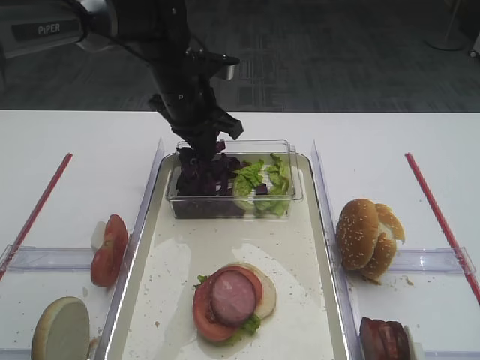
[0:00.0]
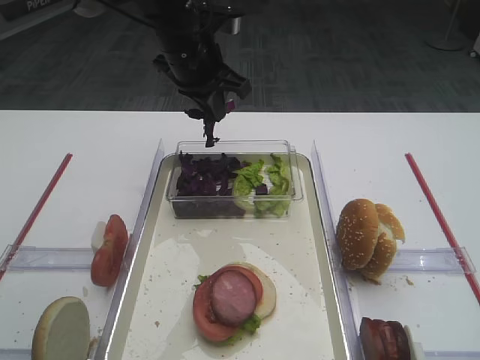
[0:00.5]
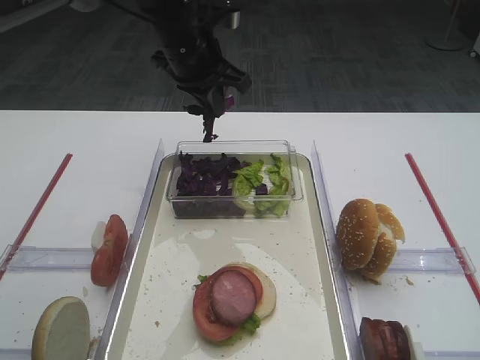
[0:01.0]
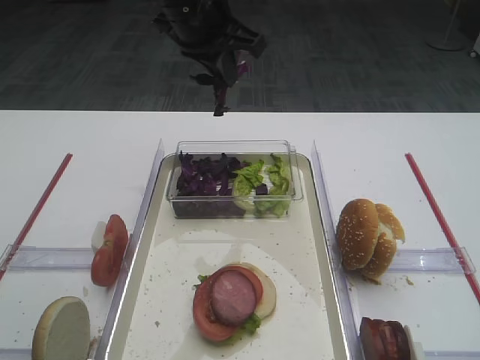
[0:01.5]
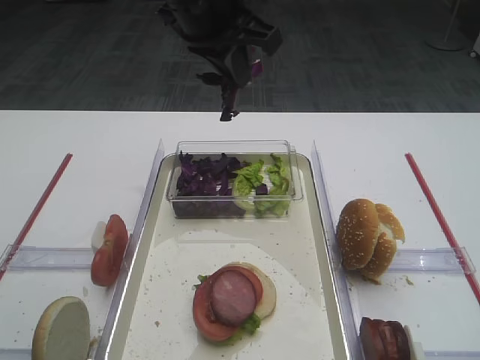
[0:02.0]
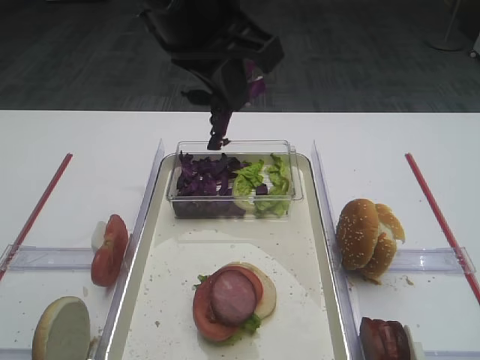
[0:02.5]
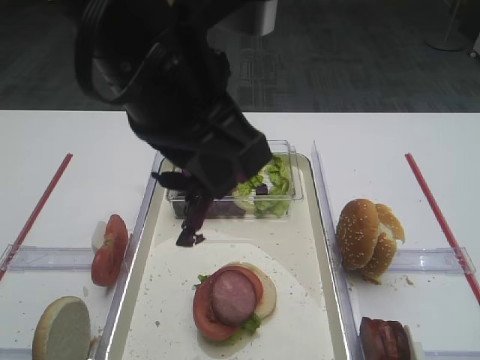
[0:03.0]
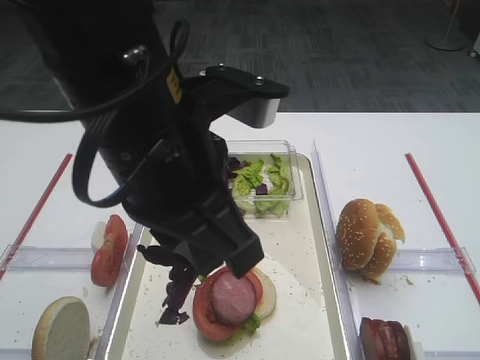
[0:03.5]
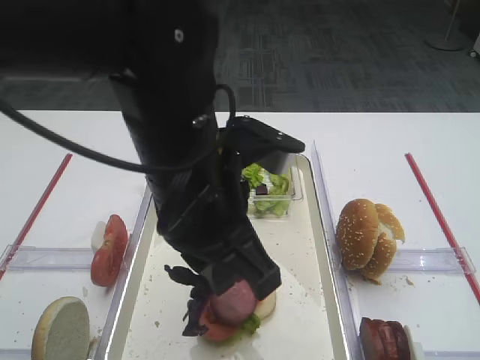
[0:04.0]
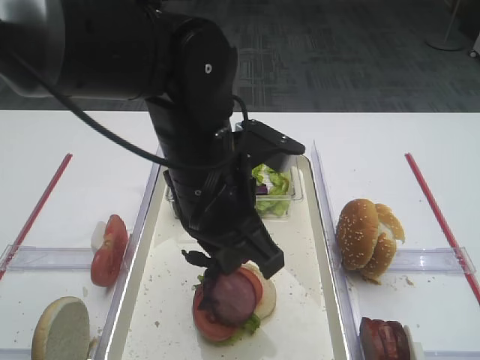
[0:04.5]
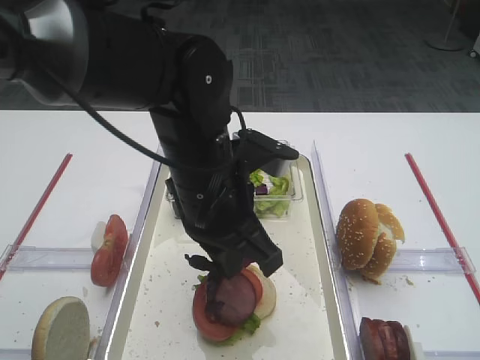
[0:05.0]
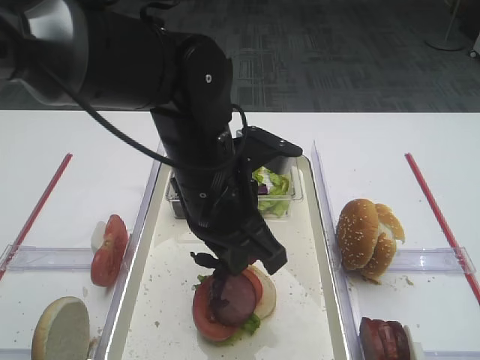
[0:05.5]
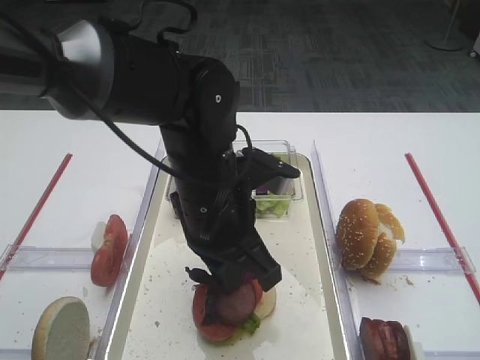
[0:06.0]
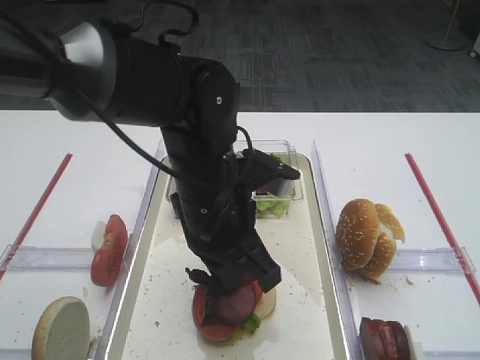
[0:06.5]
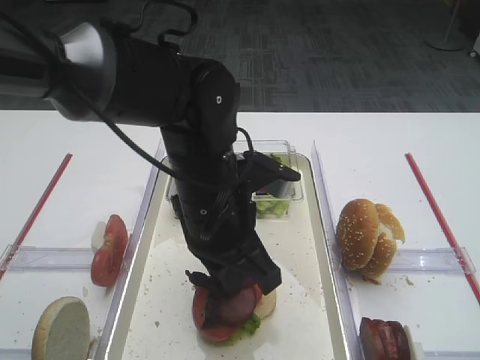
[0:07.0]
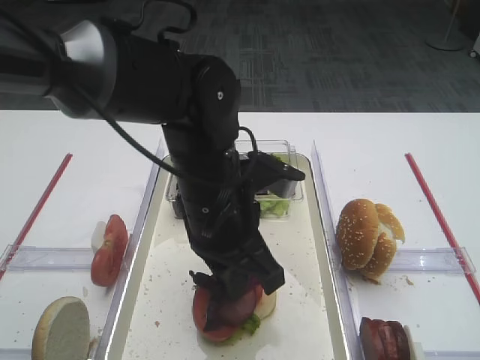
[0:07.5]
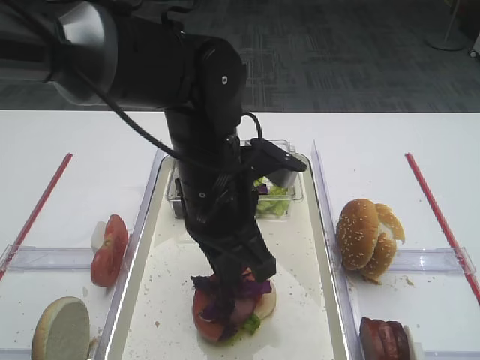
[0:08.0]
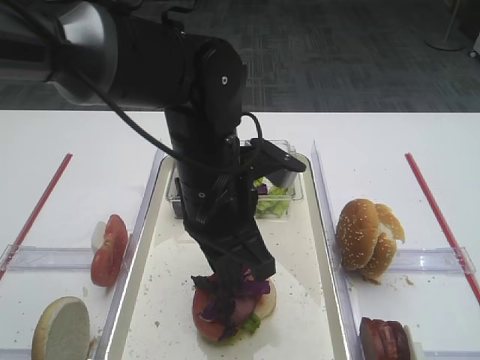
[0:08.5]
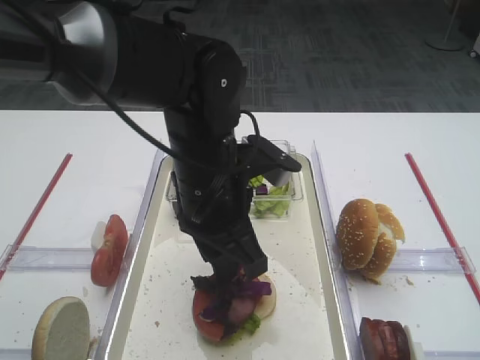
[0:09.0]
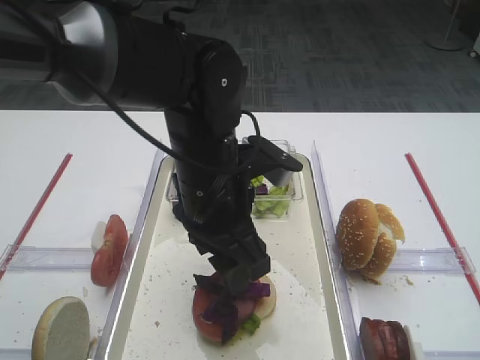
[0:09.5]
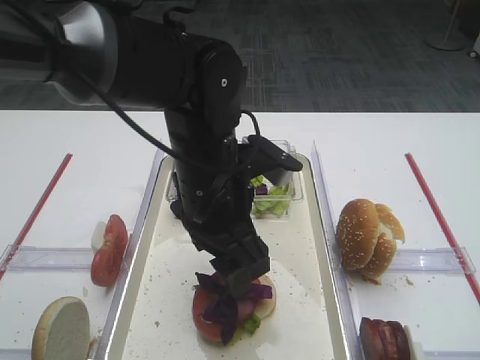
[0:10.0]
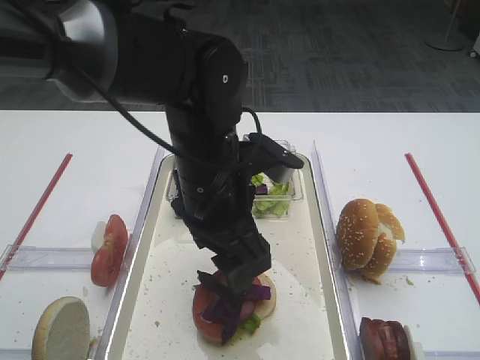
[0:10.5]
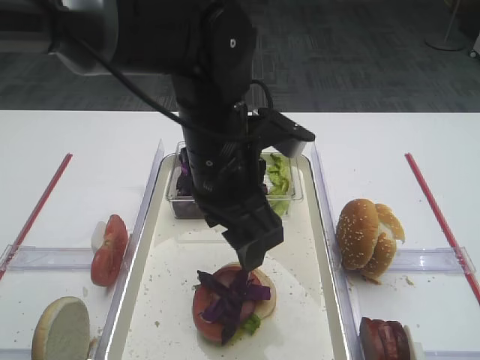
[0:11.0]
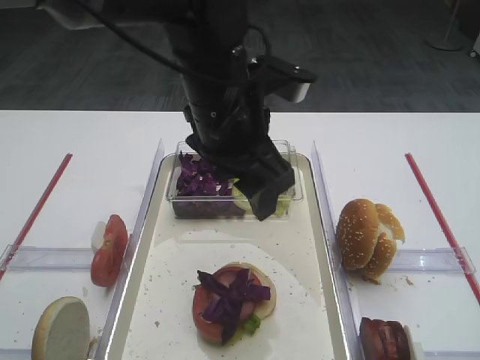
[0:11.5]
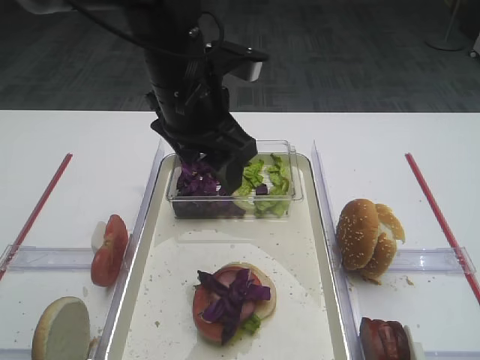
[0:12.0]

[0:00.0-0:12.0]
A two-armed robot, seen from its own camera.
Step, 0:01.5 to 0:11.5: Place the purple cabbage on the cutlet with the left gripper.
0:00.0 to 0:02.0: The left gripper heads upward and backward, covering approximately 15 cm.
0:02.0 to 0:04.0: The left gripper is displaced backward and downward by roughly 20 cm.
0:04.0 to 0:06.0: The left gripper moves downward, approximately 5 cm.
0:06.0 to 0:08.0: The grippers move only a little.
0:08.0 to 0:10.0: The left gripper opens.
0:10.0 to 0:12.0: The left gripper heads upward and forward, covering about 10 cm.

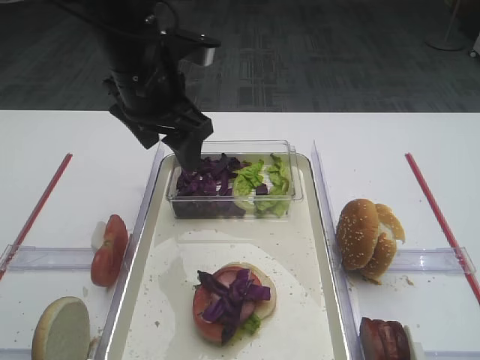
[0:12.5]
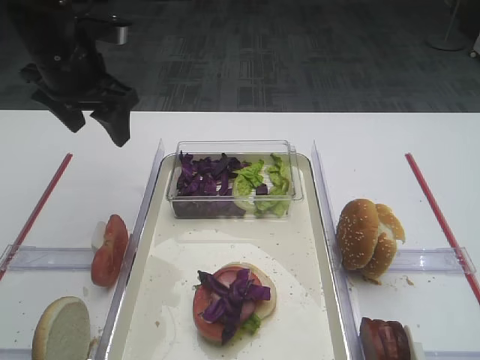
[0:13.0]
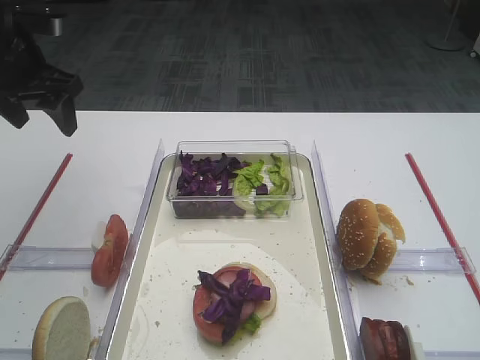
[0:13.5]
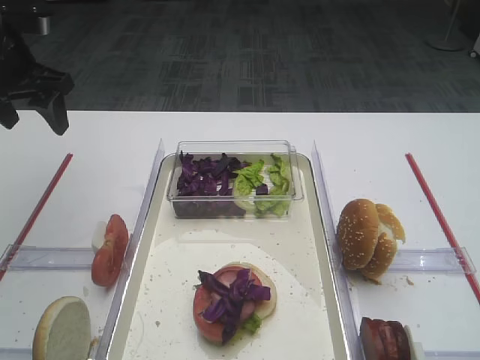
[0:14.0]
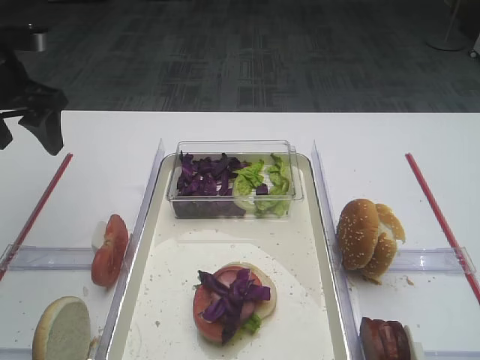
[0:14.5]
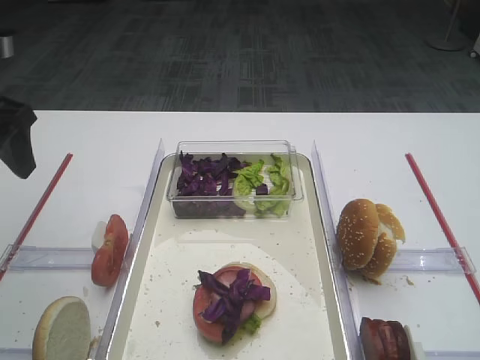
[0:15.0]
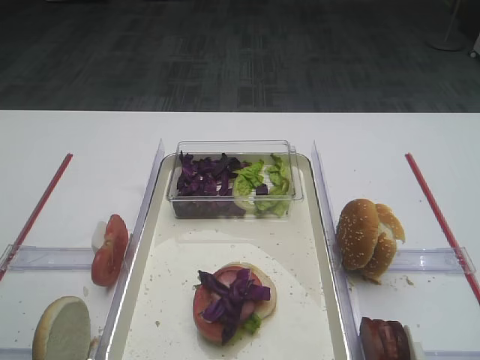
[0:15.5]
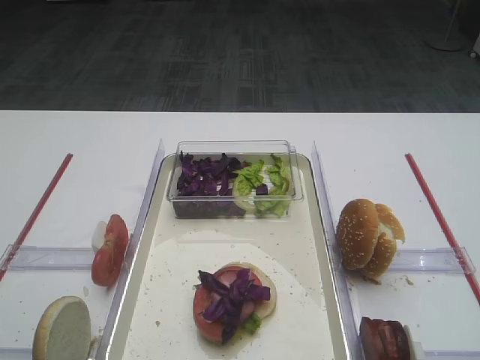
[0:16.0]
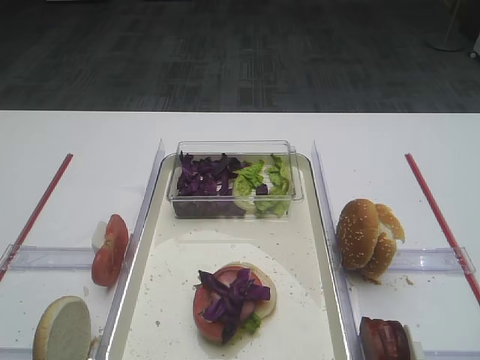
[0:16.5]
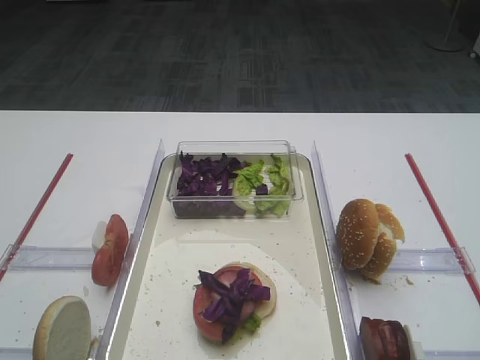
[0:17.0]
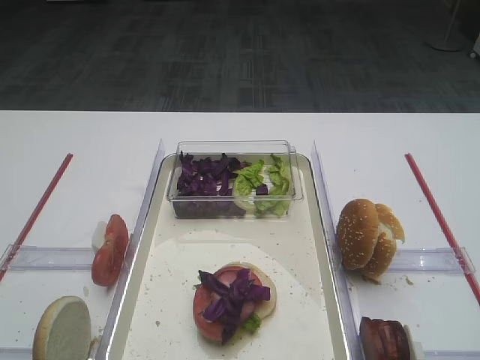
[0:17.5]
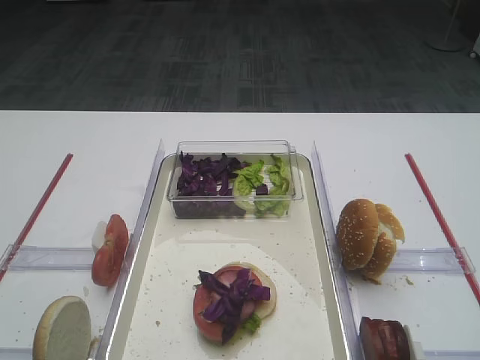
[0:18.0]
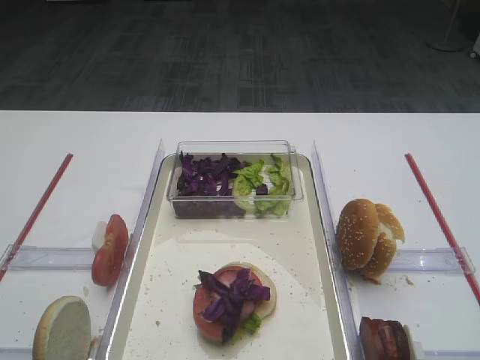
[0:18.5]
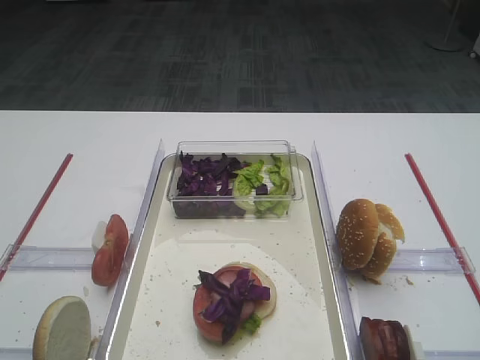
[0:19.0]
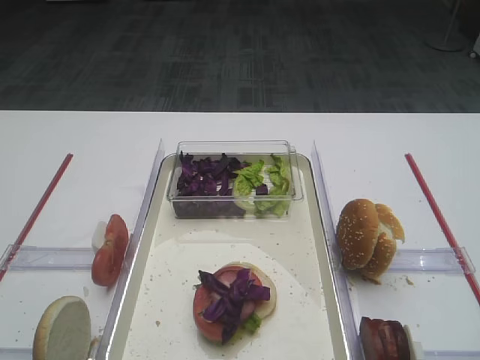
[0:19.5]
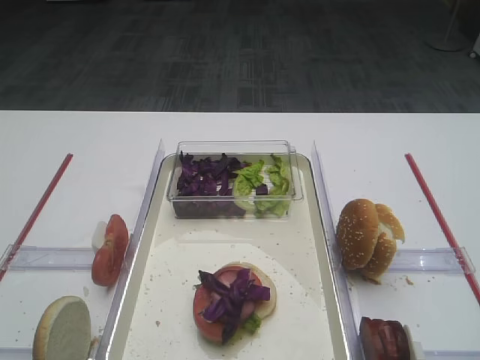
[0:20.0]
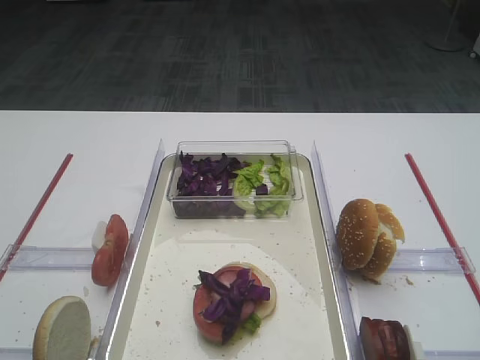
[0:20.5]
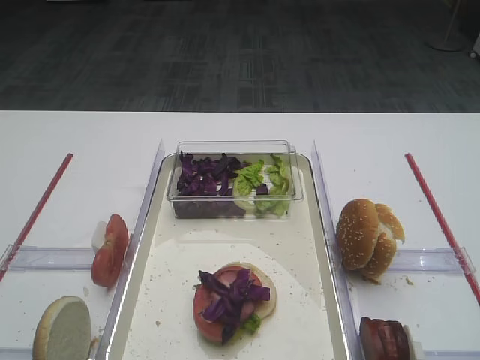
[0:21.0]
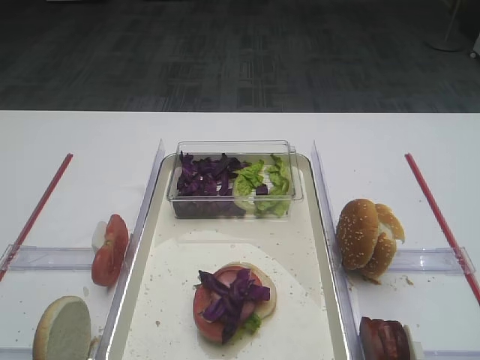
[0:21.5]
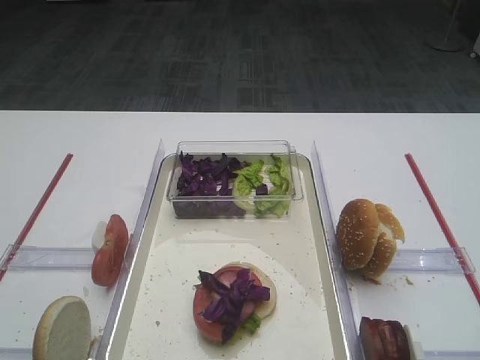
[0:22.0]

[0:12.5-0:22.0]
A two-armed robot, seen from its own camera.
0:12.5 to 0:14.5: The left gripper goes some 20 cm to the left.
0:14.5 to 0:16.5: The left gripper heads backward, covering roughly 35 cm.
0:18.0 to 0:22.0: Neither gripper changes place.
